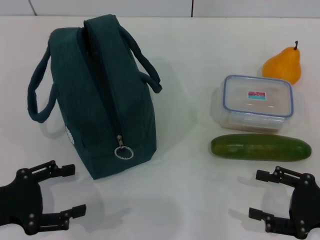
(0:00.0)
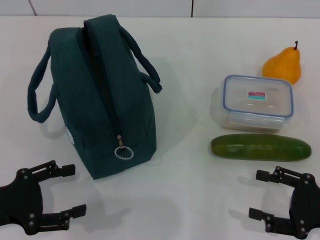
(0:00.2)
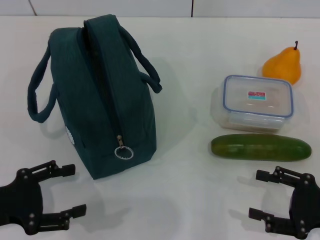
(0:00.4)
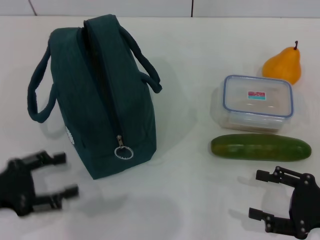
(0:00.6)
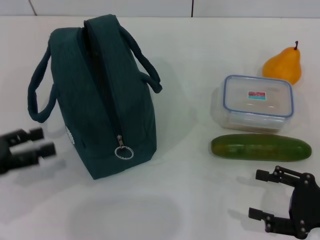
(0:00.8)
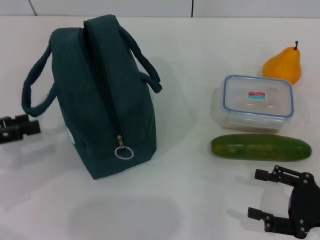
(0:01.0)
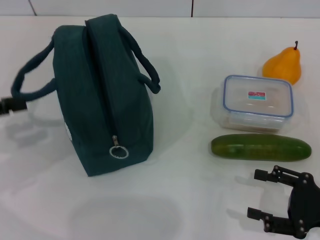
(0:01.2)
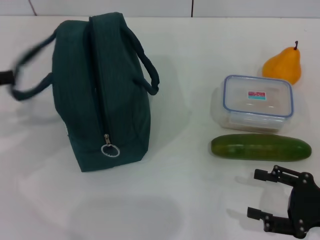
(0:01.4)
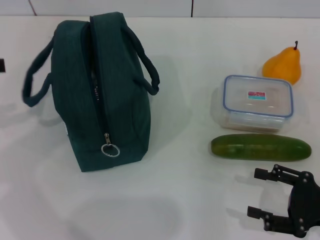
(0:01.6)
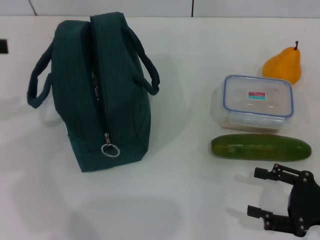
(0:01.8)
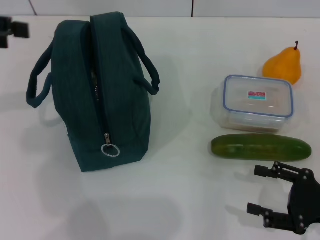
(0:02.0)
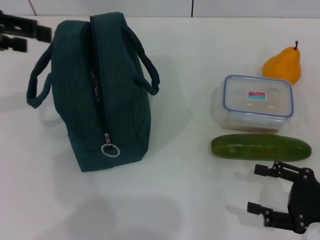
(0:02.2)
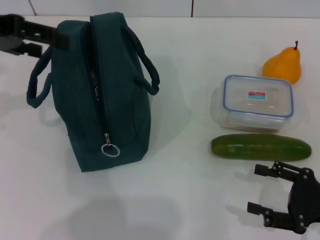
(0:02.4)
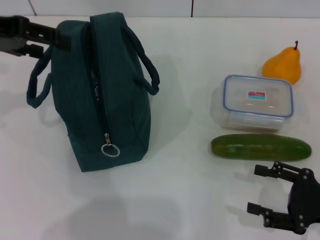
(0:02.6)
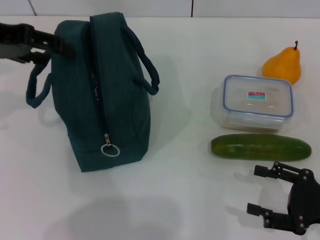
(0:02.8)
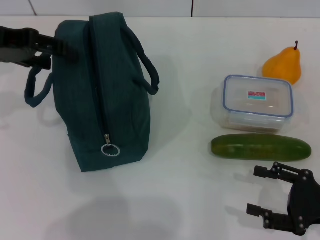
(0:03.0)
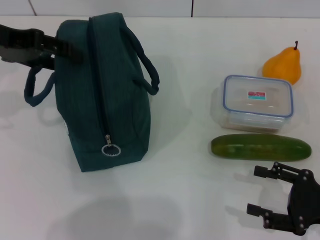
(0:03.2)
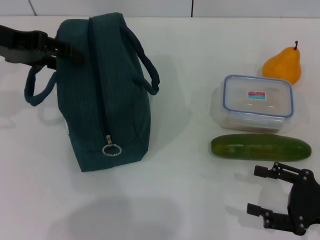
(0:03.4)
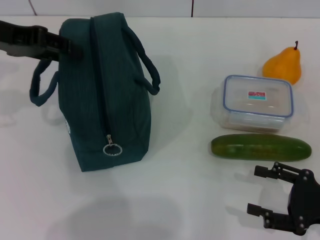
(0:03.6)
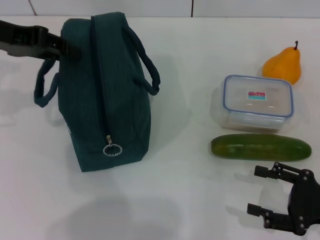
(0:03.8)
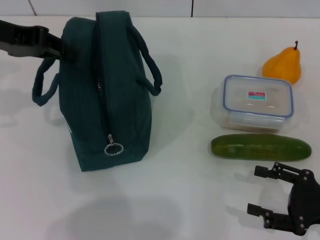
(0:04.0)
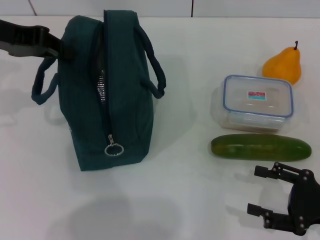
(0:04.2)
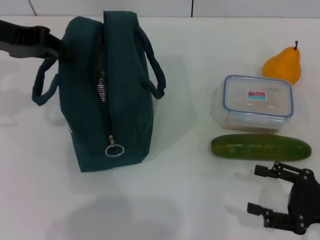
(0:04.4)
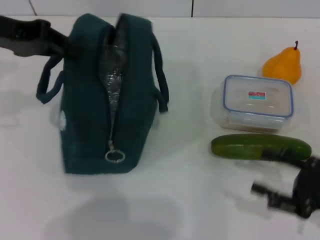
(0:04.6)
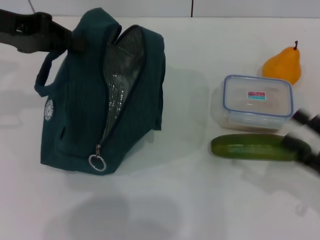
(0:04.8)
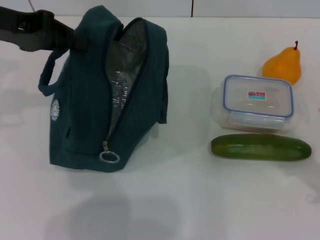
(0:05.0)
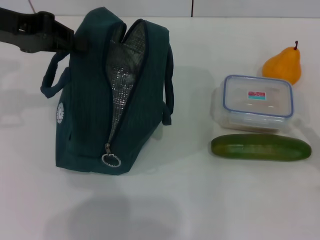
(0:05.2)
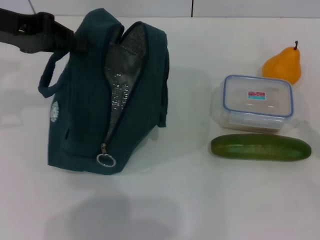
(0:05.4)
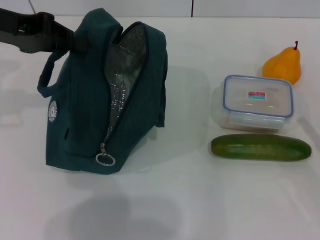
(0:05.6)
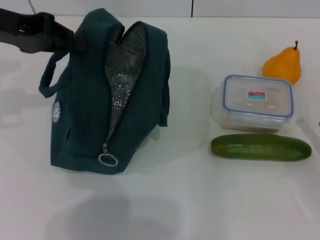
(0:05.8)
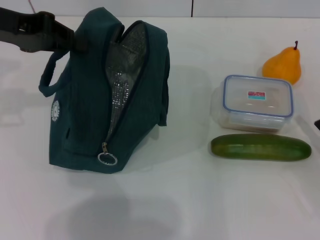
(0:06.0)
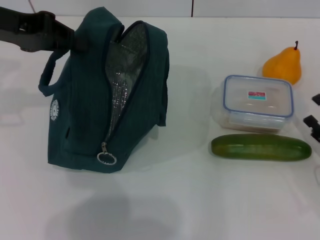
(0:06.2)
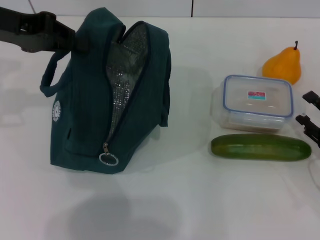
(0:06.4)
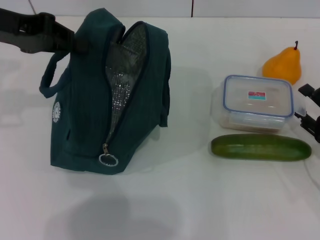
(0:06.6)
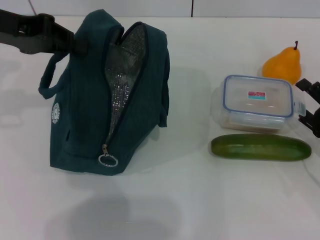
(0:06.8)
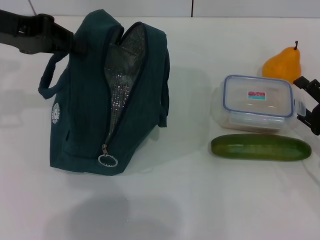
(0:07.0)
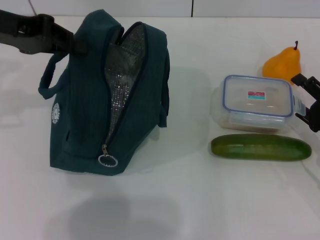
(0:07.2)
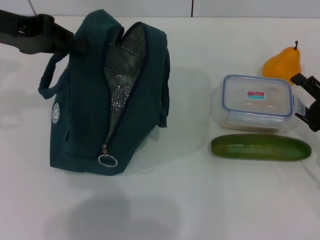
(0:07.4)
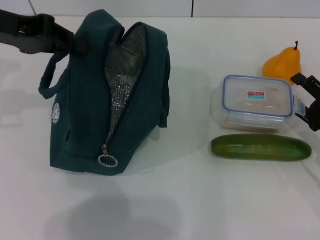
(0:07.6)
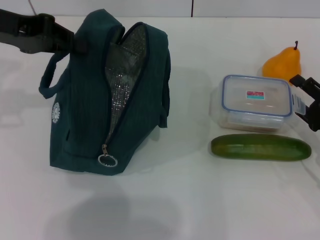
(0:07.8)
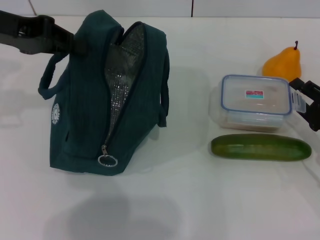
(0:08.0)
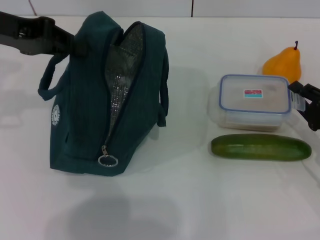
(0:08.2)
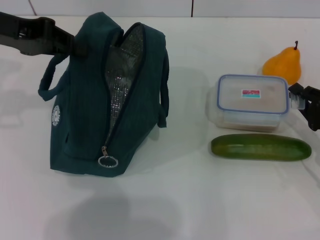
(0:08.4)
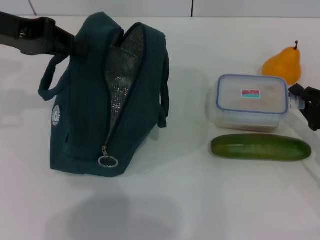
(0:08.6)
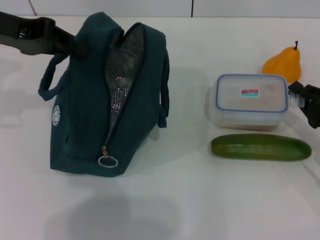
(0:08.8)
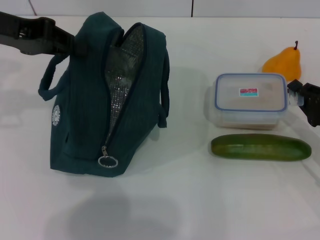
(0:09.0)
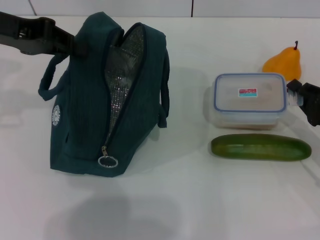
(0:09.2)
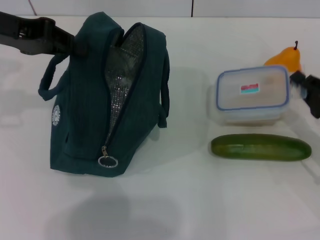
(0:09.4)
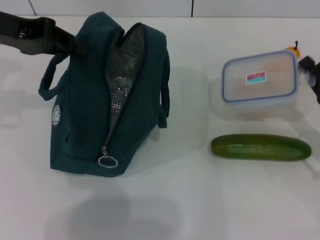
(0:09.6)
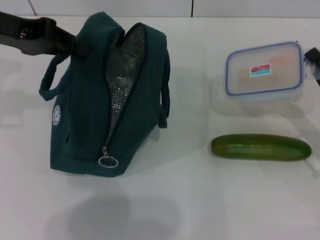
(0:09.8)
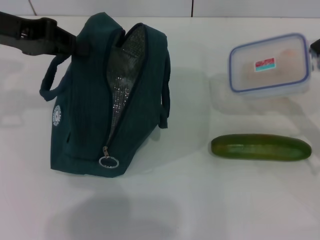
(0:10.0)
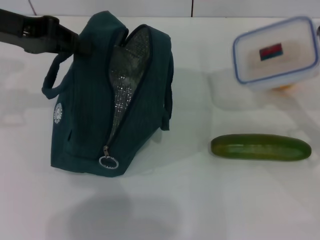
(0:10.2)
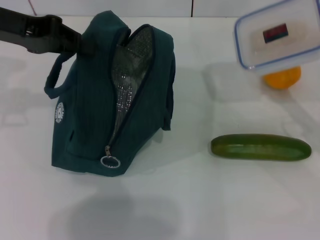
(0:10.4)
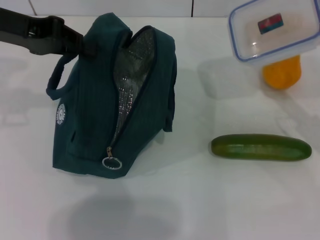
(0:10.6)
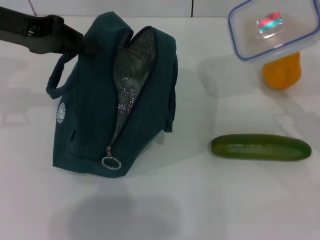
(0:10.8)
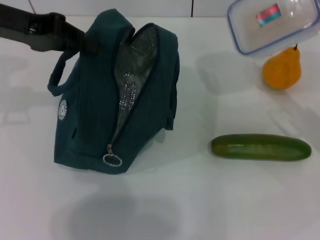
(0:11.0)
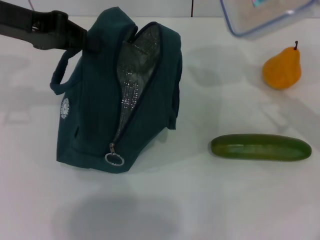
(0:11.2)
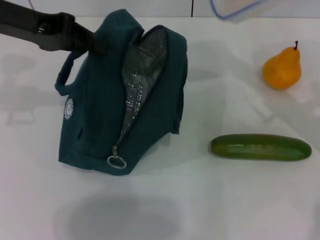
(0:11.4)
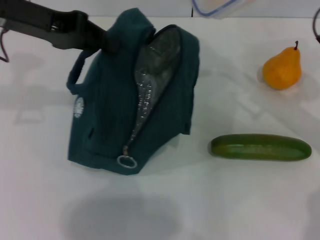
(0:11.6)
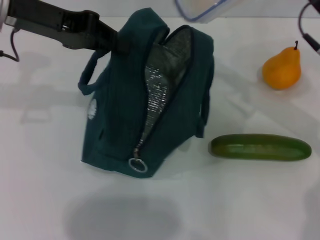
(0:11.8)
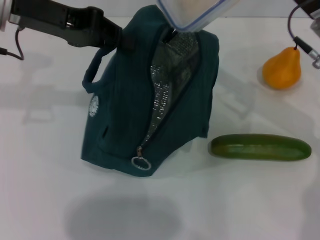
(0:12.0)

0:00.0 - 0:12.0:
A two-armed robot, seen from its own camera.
Step, 0:00.0 - 0:03.8: Hold the lunch bag with your left hand.
Step, 0:04.2 - 0:08.4: Pick up the lunch box with your right hand.
0:00.0 - 0:01.6: The left gripper shifts about 20 cm upward, forward and to the left.
0:01.6 - 0:03.0: The left gripper shifts about 10 cm to the right and forward.
0:03.0 - 0:04.4: The left gripper closes.
0:06.0 - 0:07.6: The right gripper travels forward by some 5 cm.
0:07.6 - 0:09.0: The right gripper closes up.
0:09.0 - 0:10.4: The right gripper shifts about 5 cm upward.
0:10.4 - 0:12.0: The right gripper travels to the left, upward and forward by roughly 15 cm.

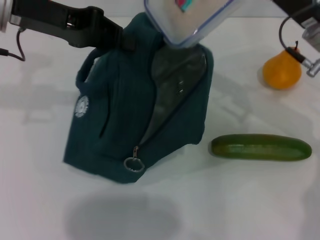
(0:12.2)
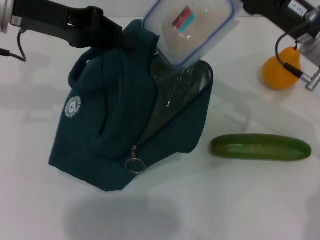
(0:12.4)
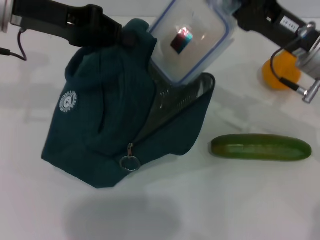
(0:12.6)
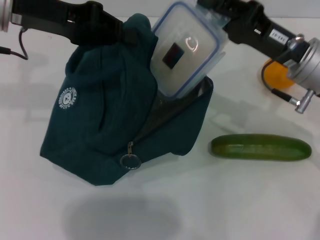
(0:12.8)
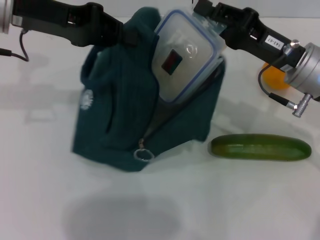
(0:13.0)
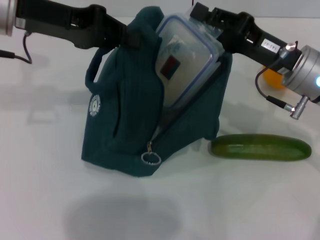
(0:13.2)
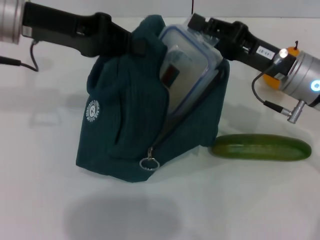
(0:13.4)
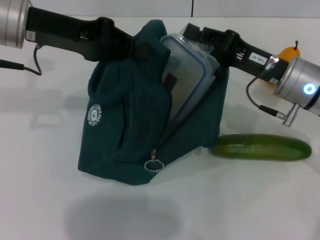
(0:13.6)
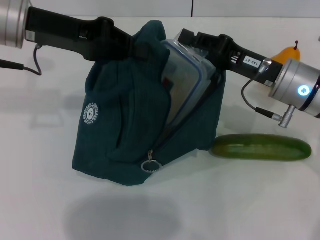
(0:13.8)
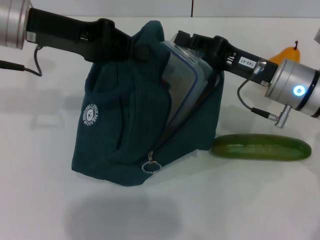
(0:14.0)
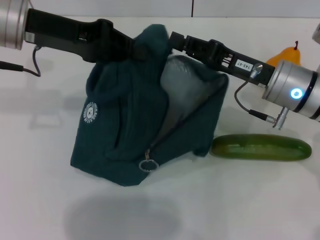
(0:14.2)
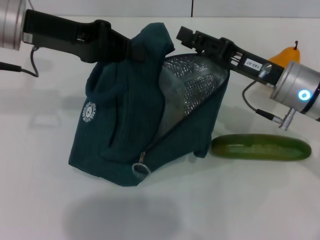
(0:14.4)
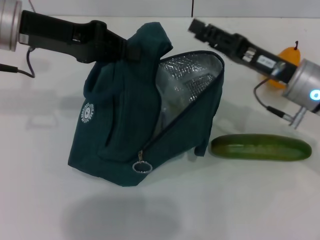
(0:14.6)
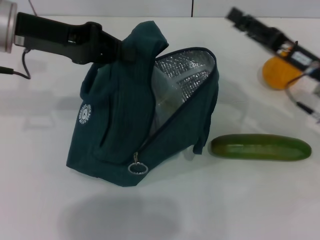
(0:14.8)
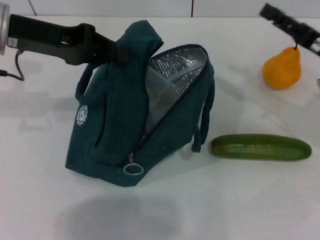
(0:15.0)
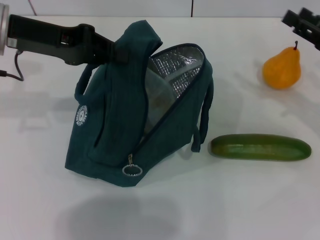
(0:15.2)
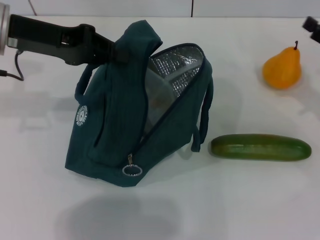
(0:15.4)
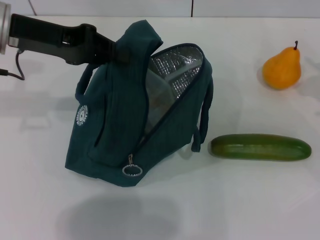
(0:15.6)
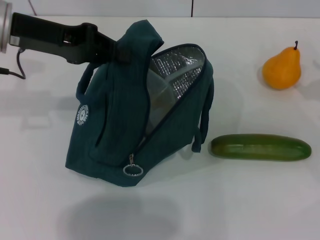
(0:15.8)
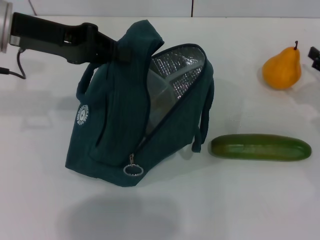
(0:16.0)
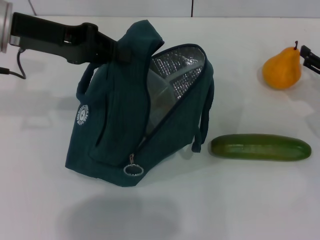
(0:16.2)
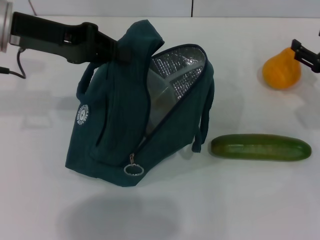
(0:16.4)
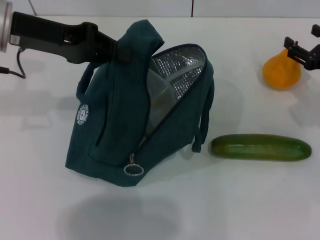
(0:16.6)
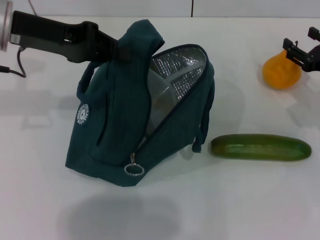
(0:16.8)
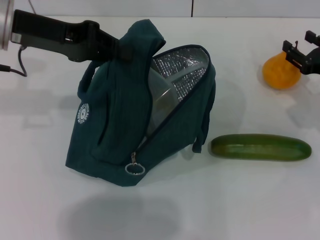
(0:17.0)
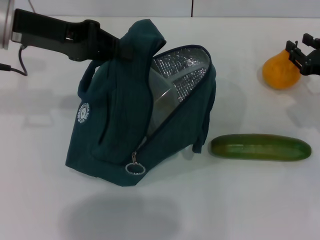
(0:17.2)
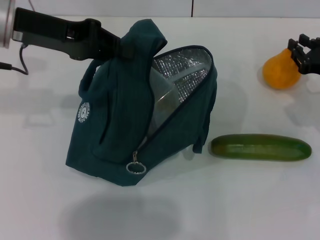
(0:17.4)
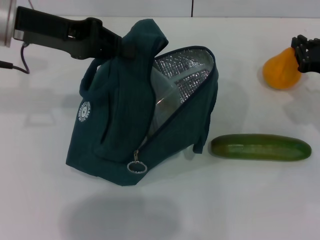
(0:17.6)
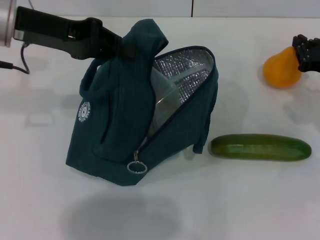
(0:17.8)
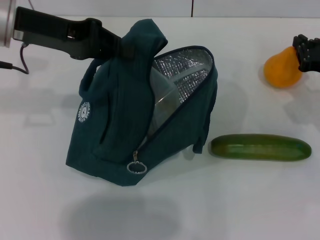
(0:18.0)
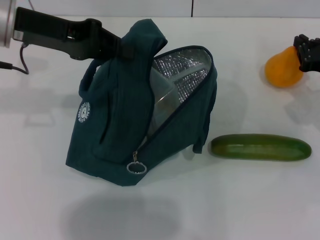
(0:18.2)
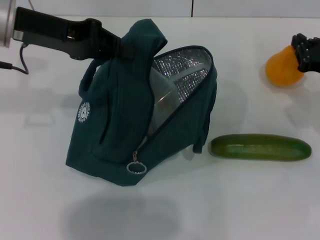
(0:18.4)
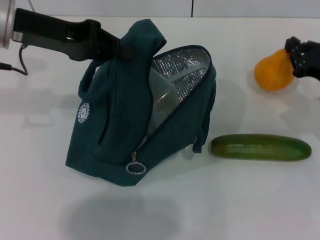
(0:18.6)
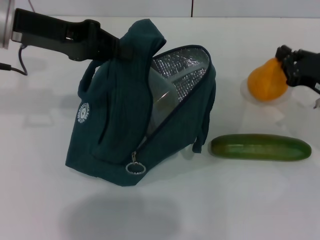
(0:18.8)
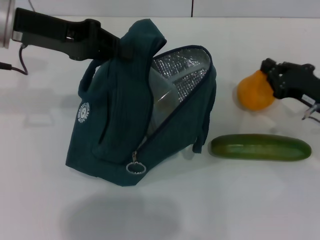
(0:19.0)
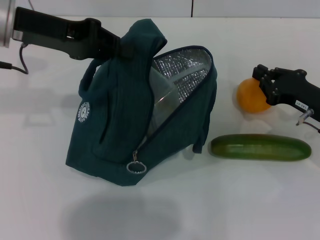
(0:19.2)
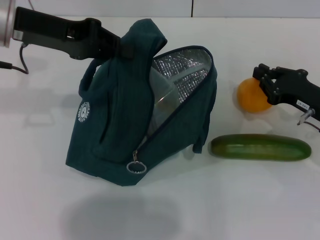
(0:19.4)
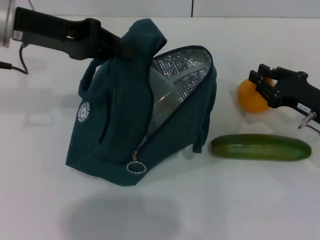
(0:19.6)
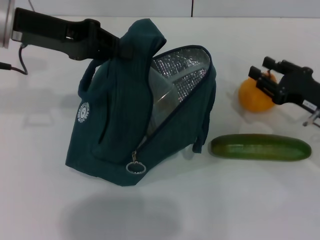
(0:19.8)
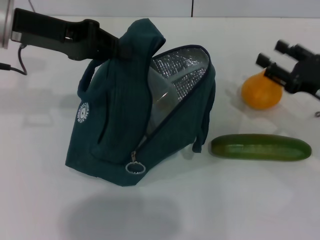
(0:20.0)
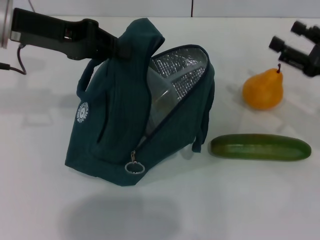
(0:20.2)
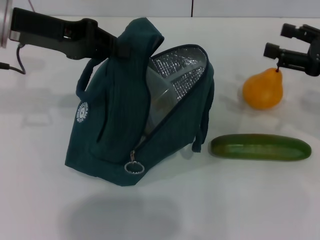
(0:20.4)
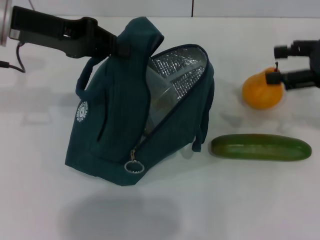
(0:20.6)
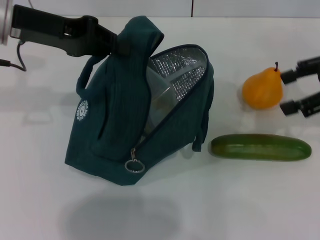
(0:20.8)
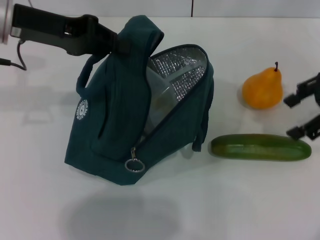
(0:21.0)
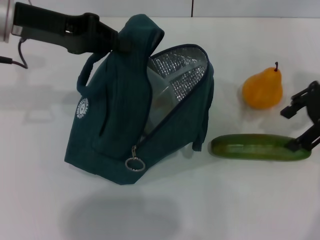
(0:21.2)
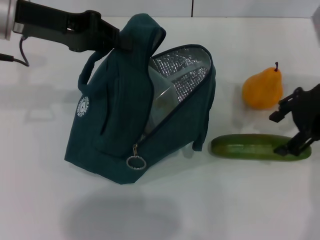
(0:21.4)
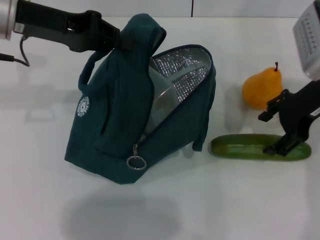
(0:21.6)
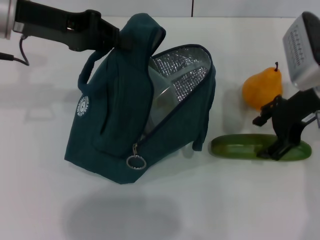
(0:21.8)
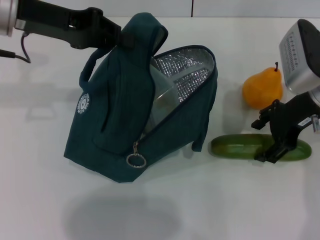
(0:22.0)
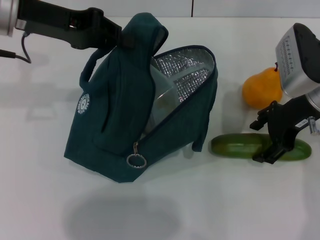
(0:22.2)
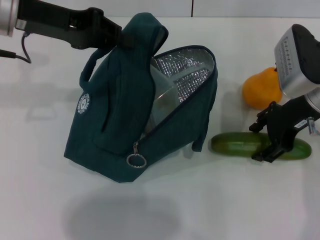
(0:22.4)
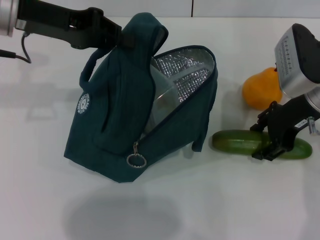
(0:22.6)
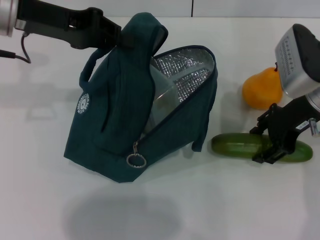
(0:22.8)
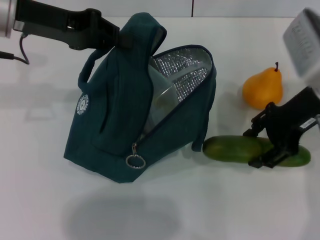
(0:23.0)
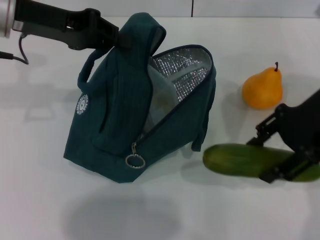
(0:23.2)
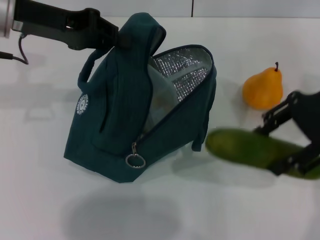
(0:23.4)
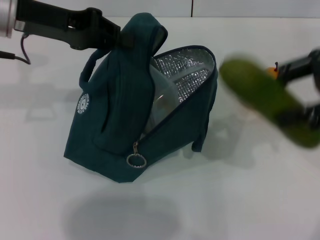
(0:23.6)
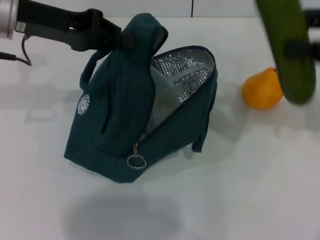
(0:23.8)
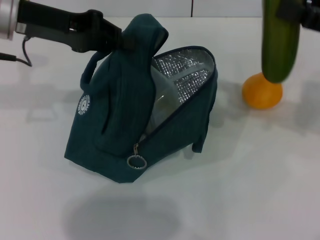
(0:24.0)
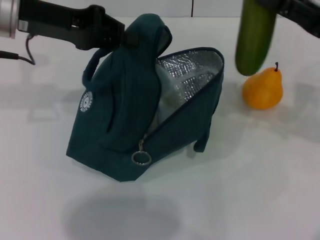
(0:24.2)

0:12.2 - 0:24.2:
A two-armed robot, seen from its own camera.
Step, 0:12.2 - 0:14.4: Place the lunch box into the lunch bag with your right hand.
Step, 0:14.6 - 0:22.4: Pick up the cucumber with your right hand.
0:12.2 - 0:13.8: The right gripper goes about 5 cm downward.
0:13.8 - 0:15.2: The right gripper is displaced to the right by roughly 15 cm, and opens up.
0:16.6 - 0:18.2: The right gripper closes up.
0:18.2 - 0:19.8: The right gripper shifts by approximately 5 cm.
0:19.8 - 0:21.2: The right gripper shifts approximately 15 cm upward, and opens up.
0:21.2 - 0:22.6: The right gripper heads downward and to the left, covering some 10 cm.
0:22.6 - 0:24.2: The right gripper heads to the right, covering some 5 cm, and reaches some 10 cm upward, then returns.
